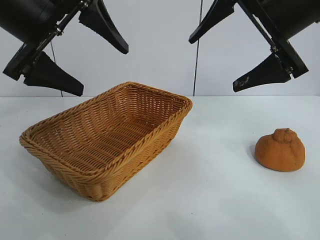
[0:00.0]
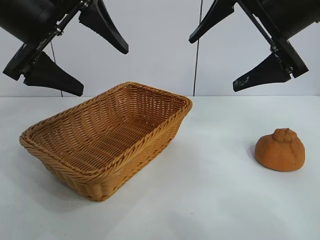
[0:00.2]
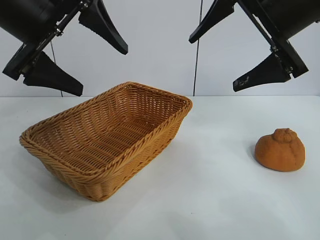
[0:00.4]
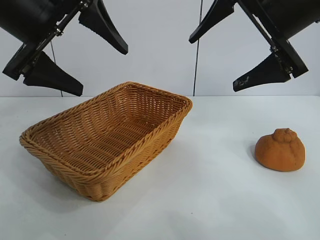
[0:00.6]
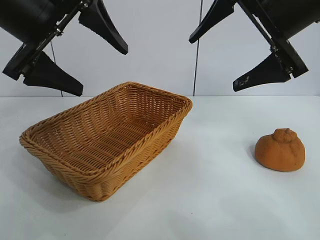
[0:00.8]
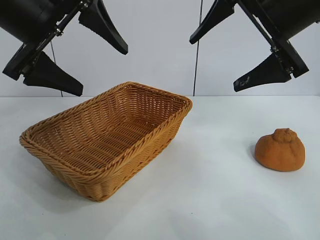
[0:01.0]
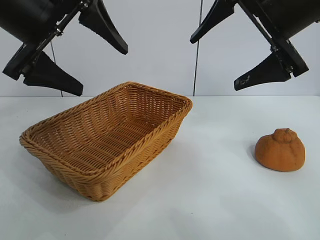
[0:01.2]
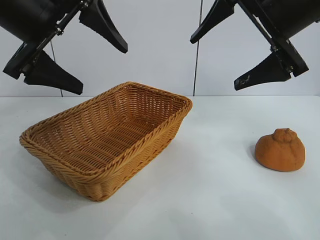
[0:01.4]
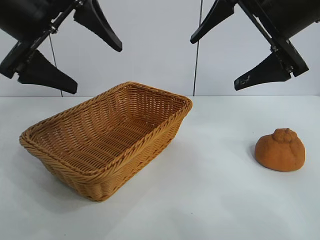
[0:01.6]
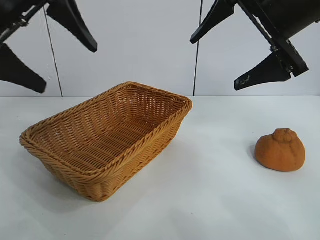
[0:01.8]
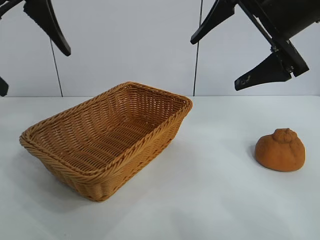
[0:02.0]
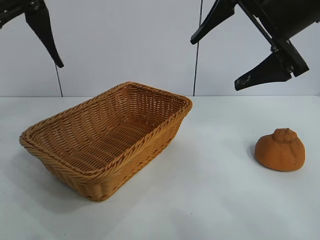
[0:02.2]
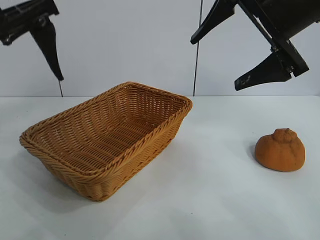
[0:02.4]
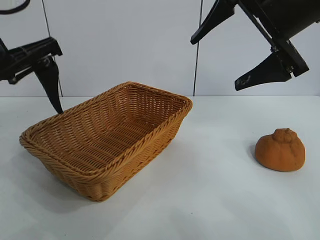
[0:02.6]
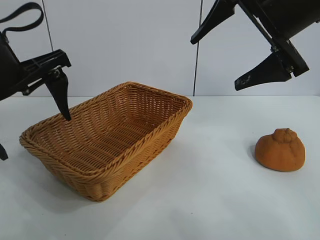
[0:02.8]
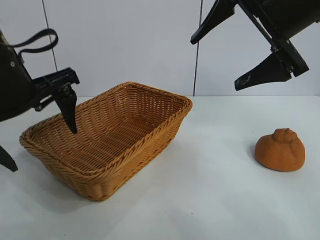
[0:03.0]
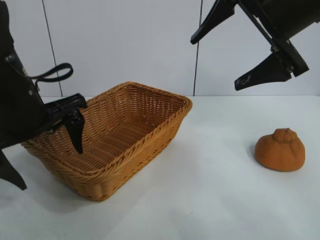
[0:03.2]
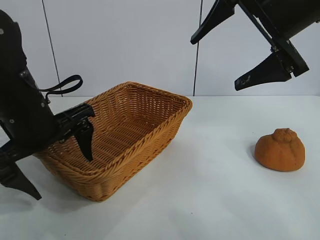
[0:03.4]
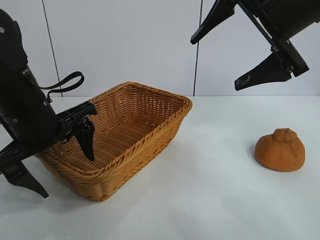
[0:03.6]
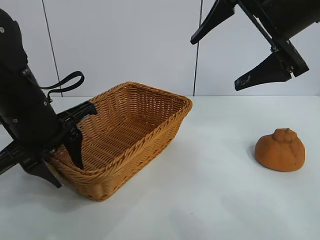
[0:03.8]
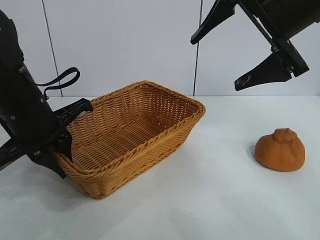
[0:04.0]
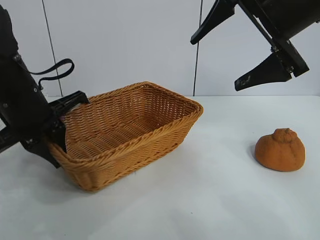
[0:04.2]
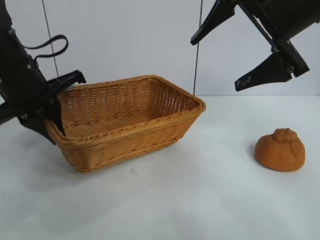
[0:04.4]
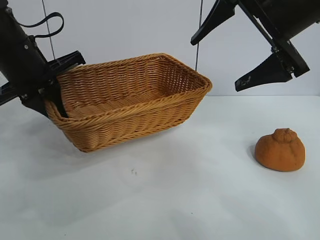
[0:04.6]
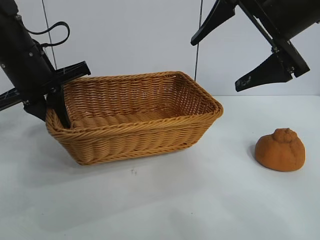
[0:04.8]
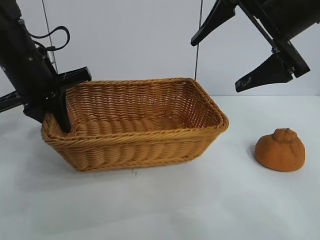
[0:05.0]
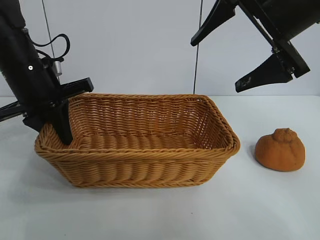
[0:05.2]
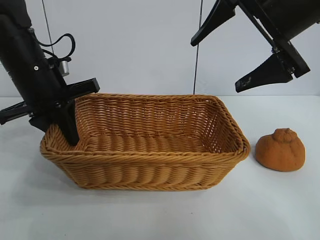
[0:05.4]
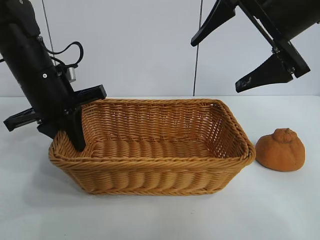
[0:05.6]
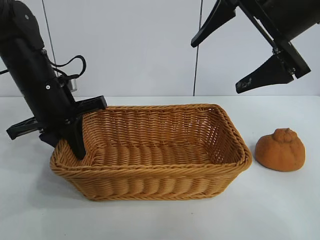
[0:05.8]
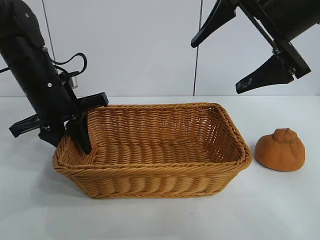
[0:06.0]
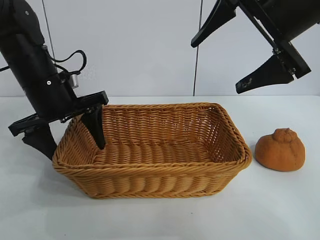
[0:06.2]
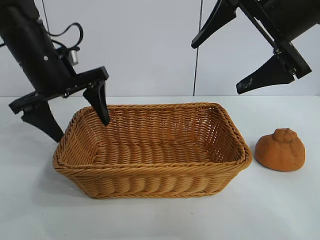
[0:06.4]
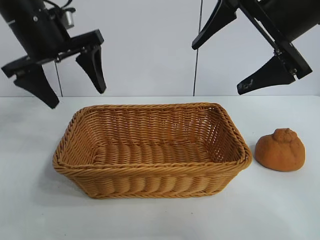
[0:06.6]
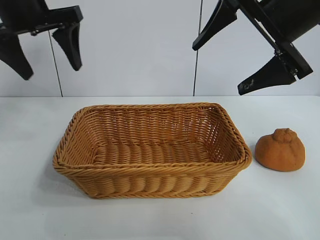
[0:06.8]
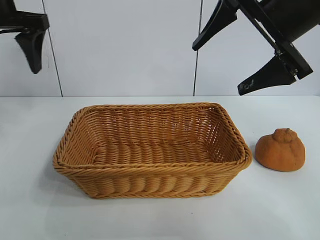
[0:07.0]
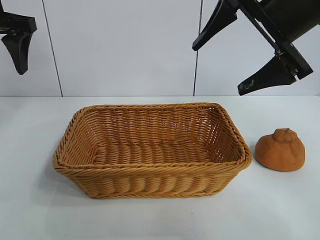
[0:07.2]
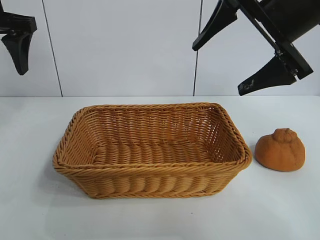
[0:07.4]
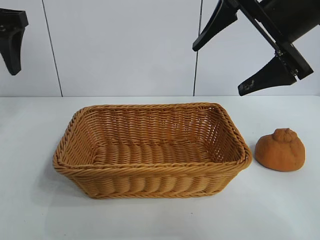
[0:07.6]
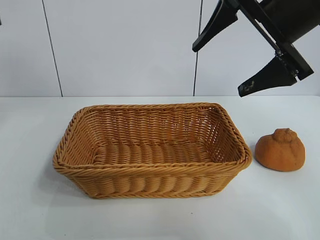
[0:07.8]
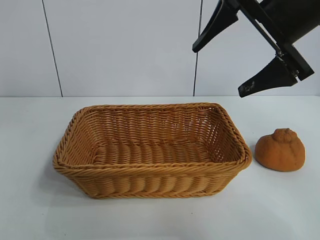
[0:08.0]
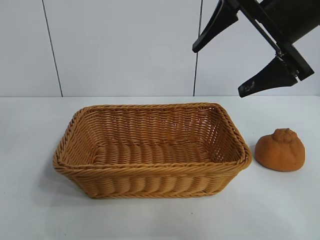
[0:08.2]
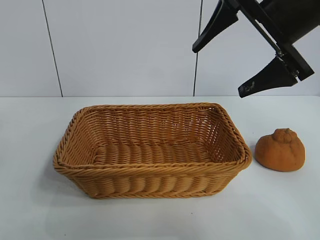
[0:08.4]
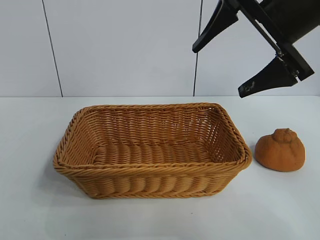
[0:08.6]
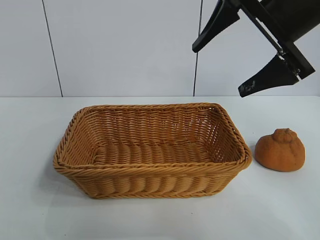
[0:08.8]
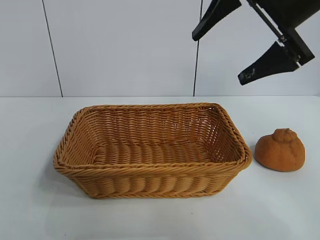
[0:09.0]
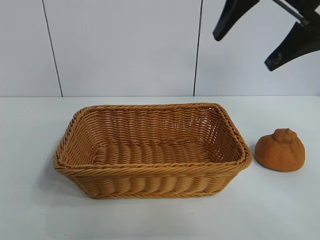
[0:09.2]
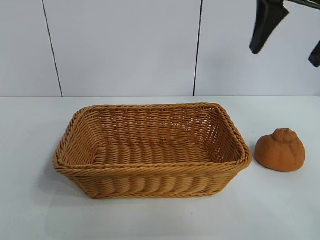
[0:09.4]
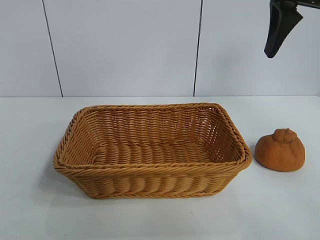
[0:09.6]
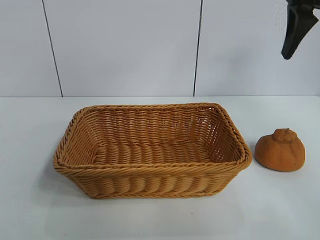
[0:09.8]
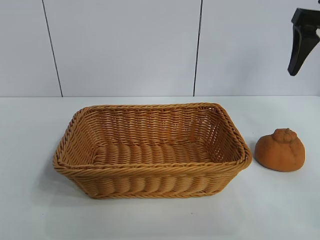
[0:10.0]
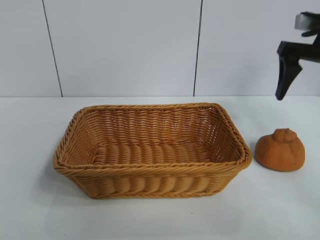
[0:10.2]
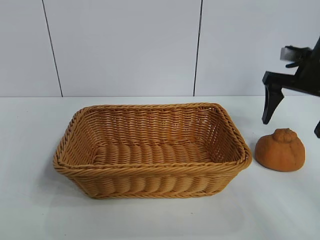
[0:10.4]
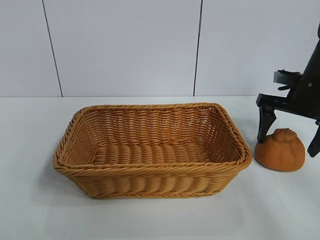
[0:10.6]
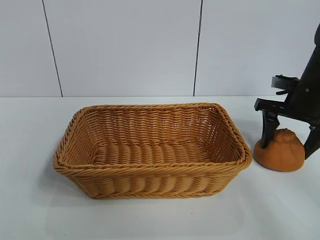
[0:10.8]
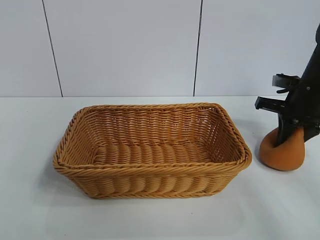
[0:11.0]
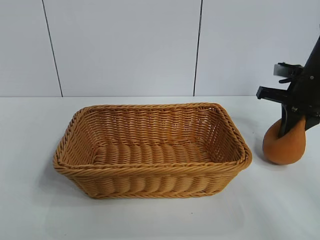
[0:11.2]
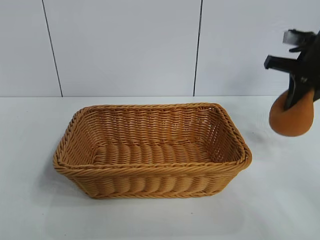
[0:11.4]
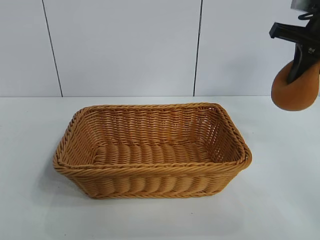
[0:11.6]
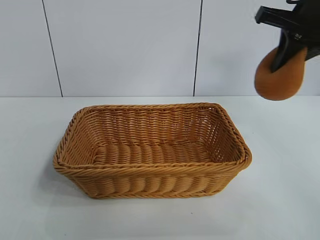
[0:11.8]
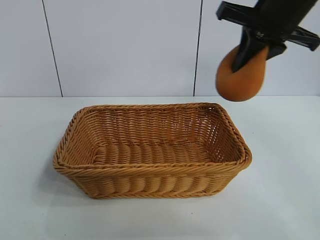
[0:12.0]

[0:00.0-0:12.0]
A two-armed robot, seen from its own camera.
Task of the whole recording: pick up the orange and put it into the basket.
Step, 0:01.0 to 0:04.0: Grasp the basket with left gripper.
Step, 0:04.2 to 0:06.4: Place the basket in the center of view with left gripper.
Step, 0:06.6 to 0:11.0: Grasp the orange with right gripper.

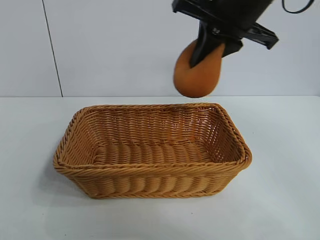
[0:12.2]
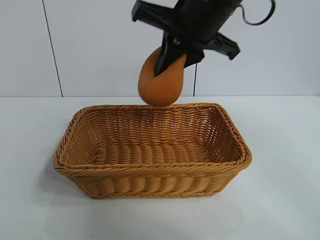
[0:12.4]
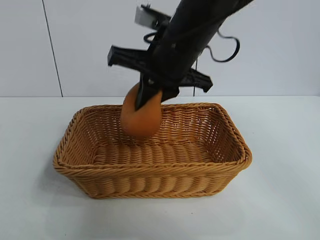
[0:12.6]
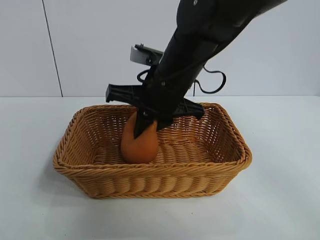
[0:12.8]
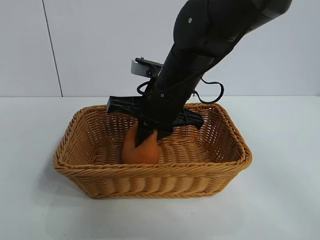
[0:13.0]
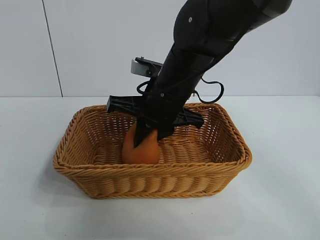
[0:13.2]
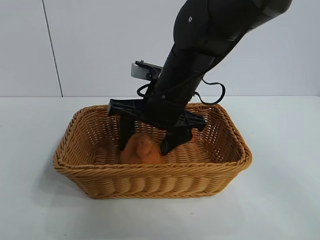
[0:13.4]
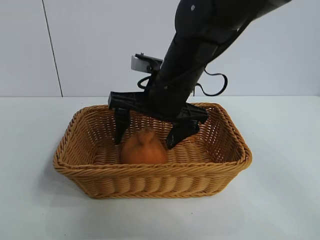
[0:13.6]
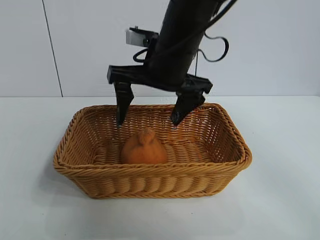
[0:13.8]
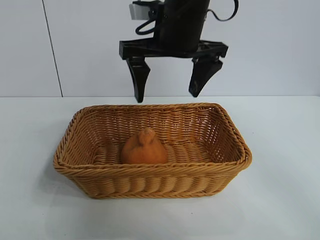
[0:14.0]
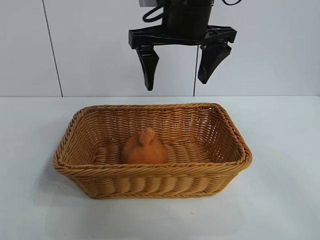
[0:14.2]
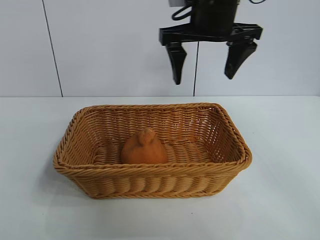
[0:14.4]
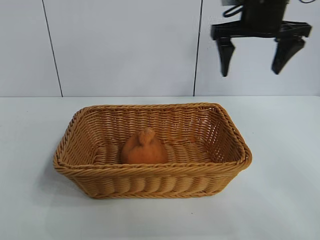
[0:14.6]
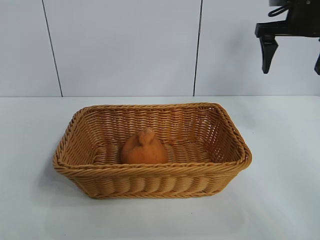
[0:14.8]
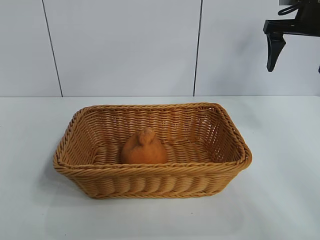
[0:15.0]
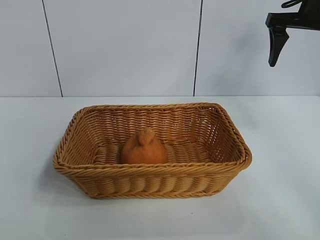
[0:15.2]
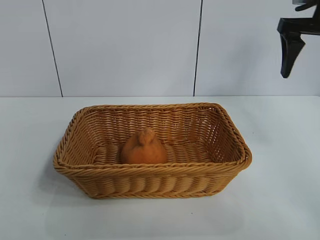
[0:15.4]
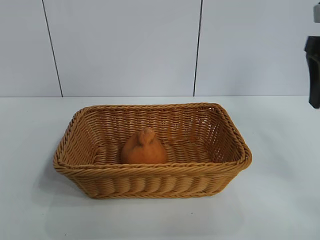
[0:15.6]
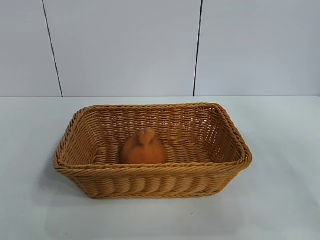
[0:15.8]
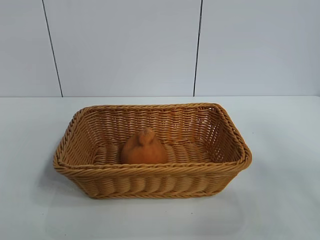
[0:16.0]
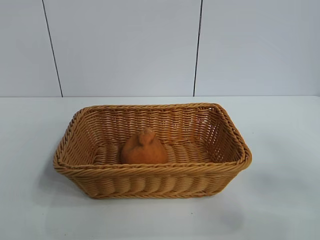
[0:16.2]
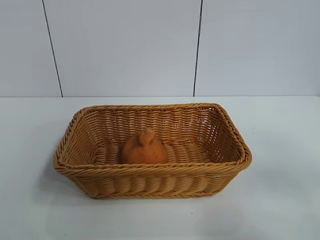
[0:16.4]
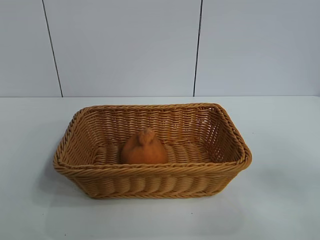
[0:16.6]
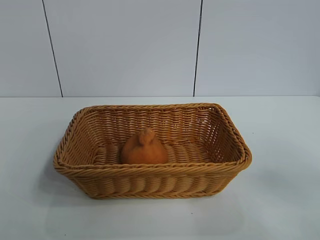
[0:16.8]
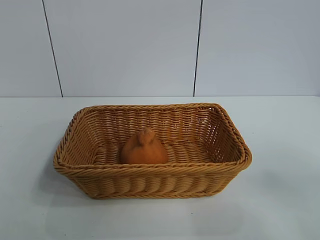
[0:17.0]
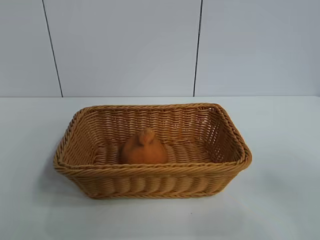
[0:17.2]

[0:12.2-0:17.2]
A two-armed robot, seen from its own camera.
Task of the whole recording: pick up the orange and put it into the basket.
Step, 0:12.2 to 0:13.8: Place the orange in the basket with right gripper.

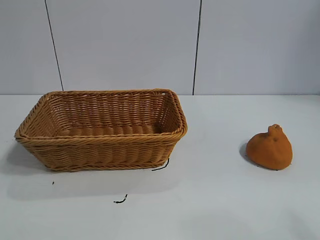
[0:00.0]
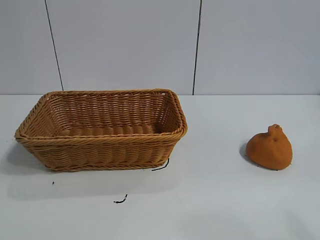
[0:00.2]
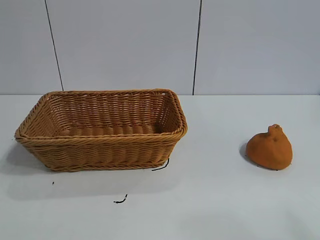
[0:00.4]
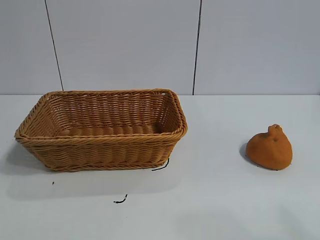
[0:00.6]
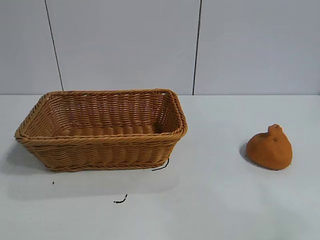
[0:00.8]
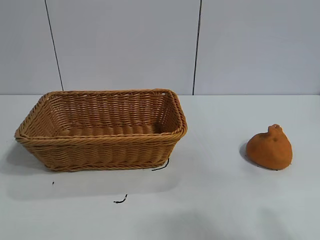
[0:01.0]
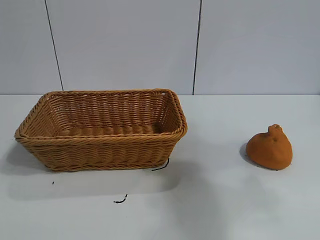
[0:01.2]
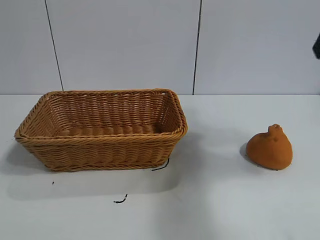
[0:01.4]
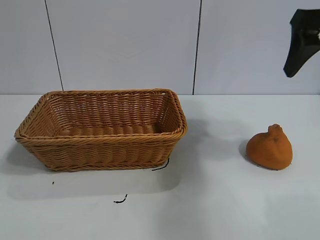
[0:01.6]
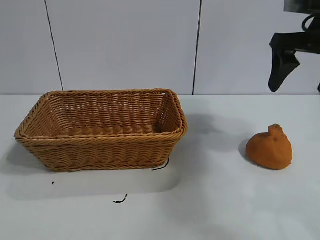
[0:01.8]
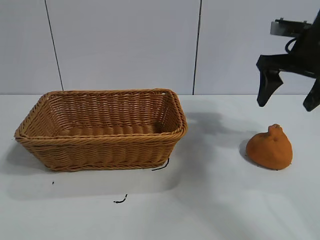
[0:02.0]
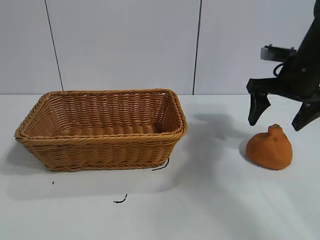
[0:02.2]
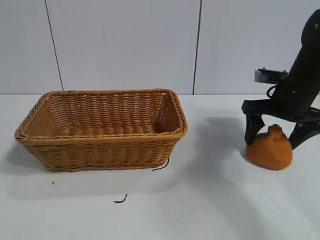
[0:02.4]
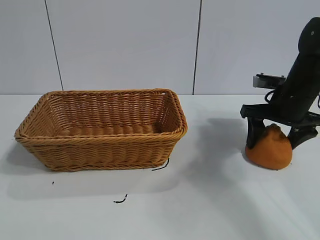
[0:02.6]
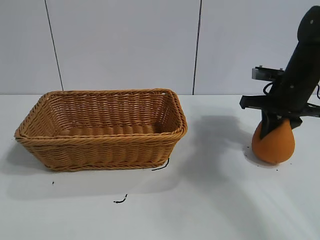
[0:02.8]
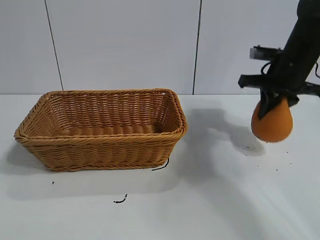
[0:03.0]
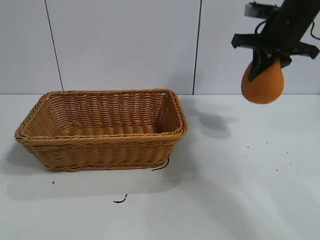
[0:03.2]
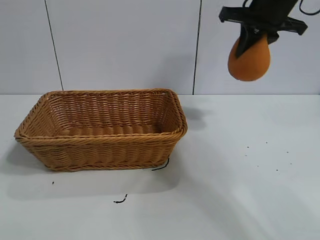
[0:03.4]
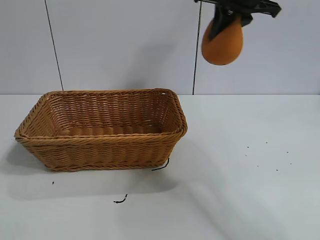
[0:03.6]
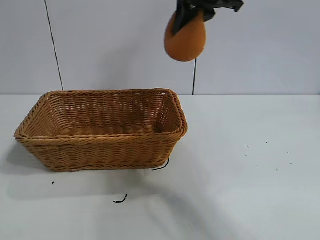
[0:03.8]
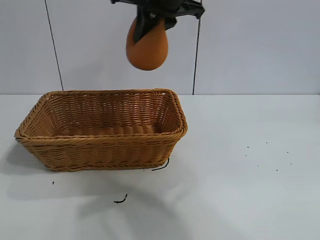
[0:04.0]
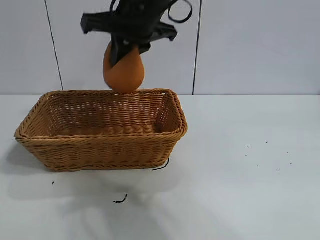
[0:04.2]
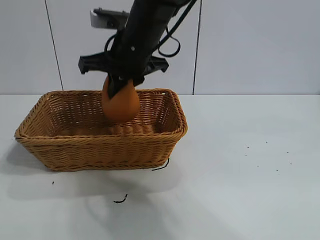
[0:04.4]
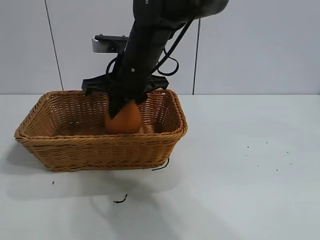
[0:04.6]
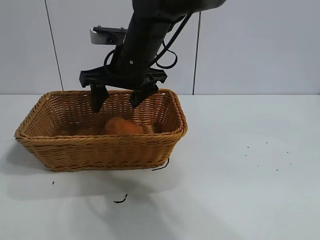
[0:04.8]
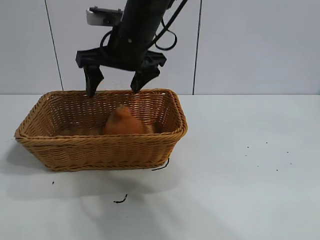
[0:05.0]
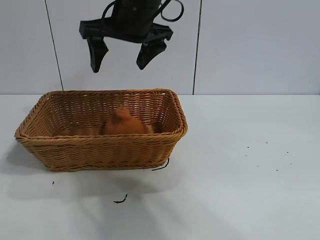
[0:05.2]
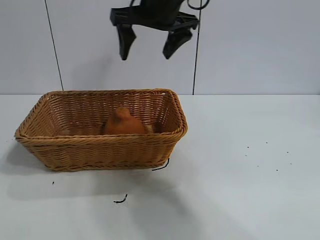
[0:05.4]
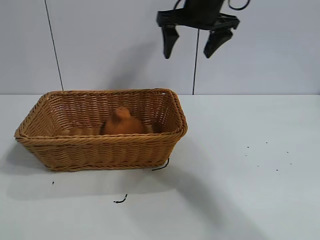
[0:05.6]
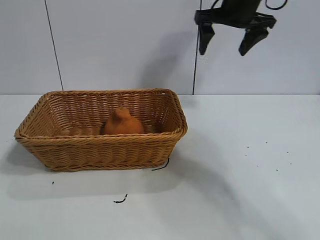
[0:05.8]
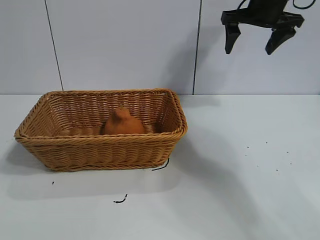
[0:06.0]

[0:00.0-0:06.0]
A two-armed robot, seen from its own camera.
Task of the whole recording: pick up the orange and put it into the basket.
Step, 0:00.6 to 0:02.8: Grasp the orange with right gripper.
Step, 0:03.0 to 0:04.8: Place the orange in the basket with right gripper.
